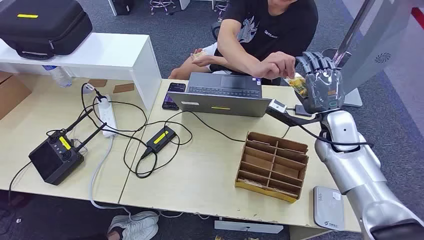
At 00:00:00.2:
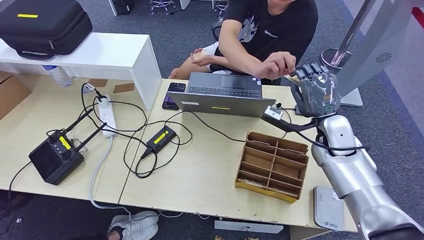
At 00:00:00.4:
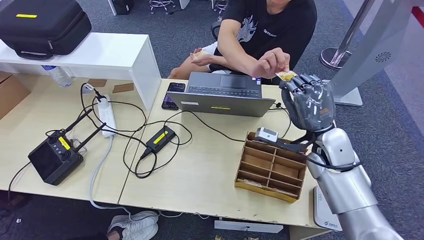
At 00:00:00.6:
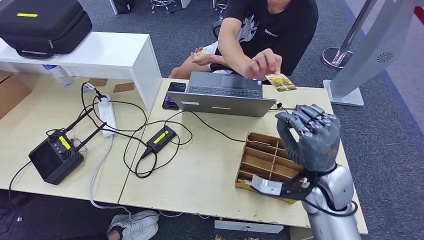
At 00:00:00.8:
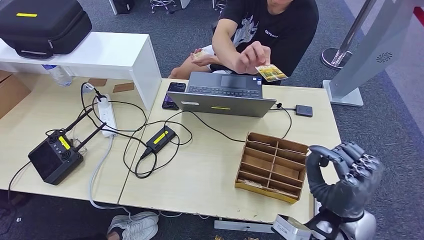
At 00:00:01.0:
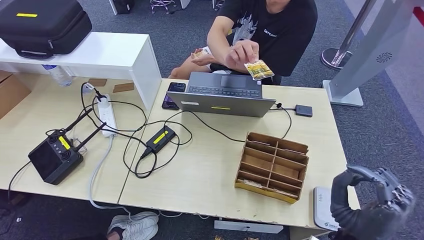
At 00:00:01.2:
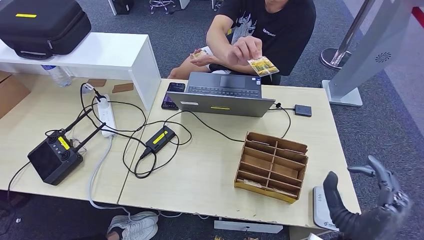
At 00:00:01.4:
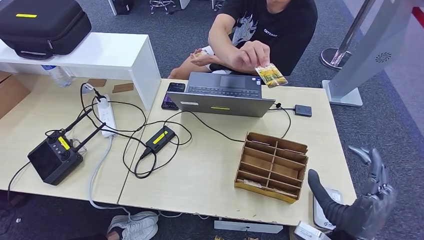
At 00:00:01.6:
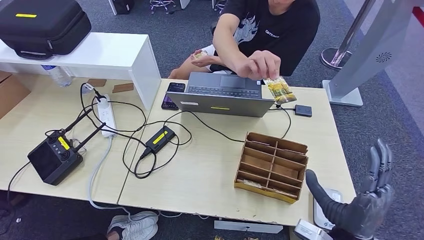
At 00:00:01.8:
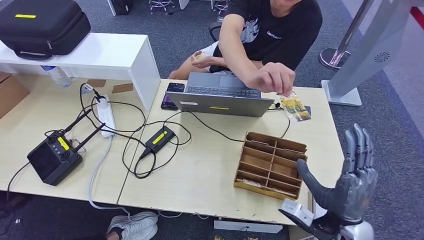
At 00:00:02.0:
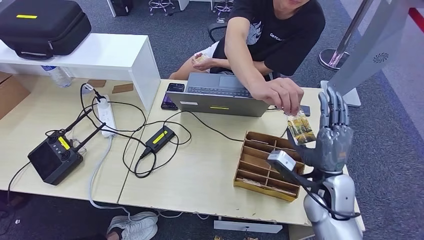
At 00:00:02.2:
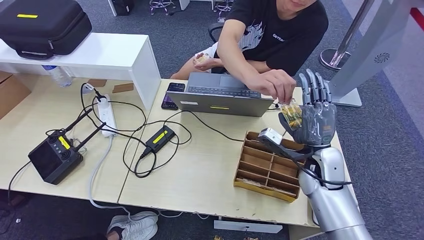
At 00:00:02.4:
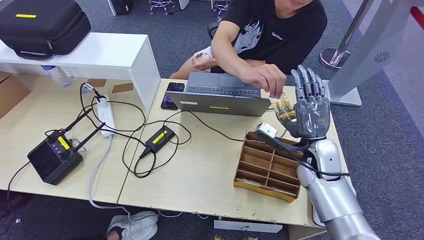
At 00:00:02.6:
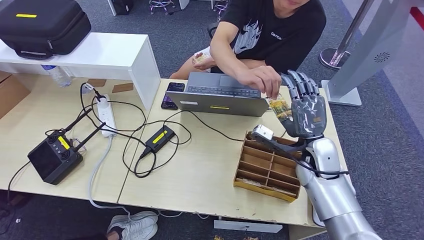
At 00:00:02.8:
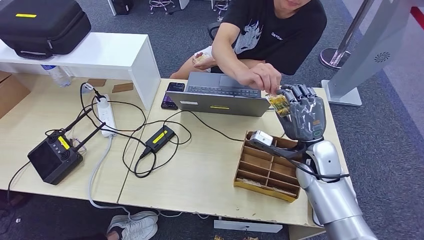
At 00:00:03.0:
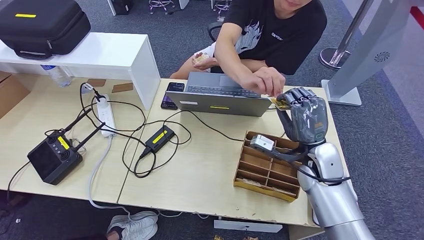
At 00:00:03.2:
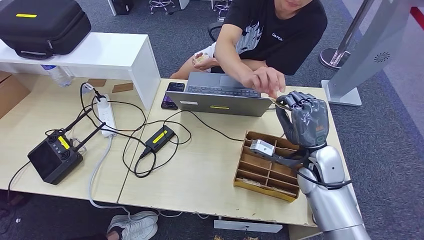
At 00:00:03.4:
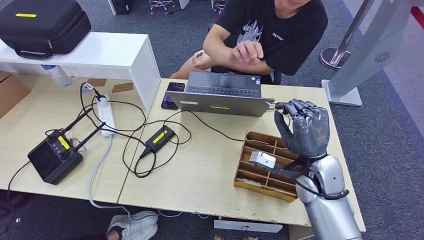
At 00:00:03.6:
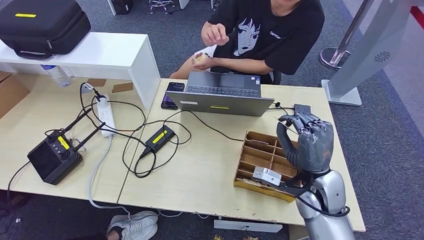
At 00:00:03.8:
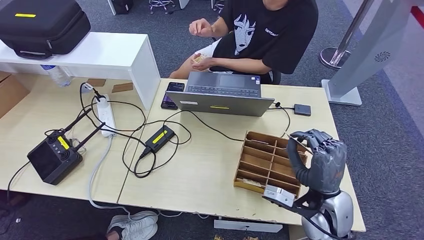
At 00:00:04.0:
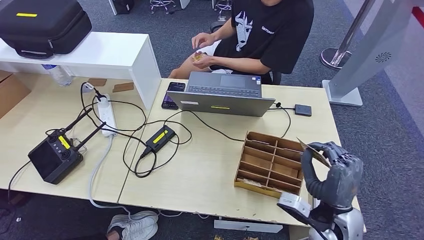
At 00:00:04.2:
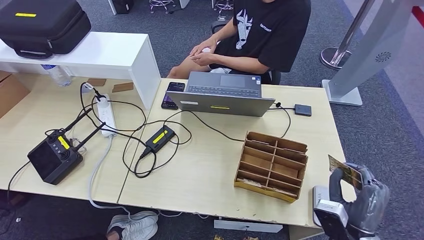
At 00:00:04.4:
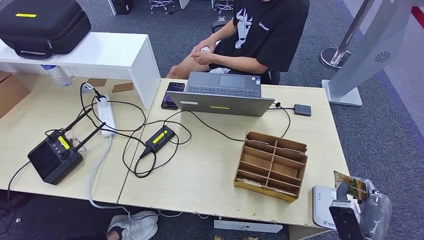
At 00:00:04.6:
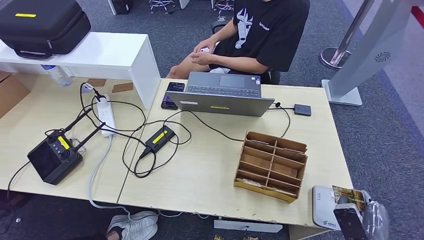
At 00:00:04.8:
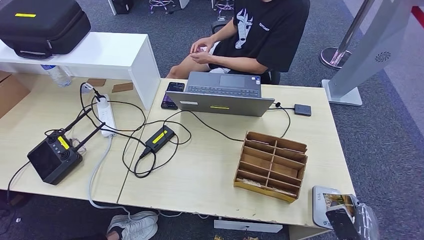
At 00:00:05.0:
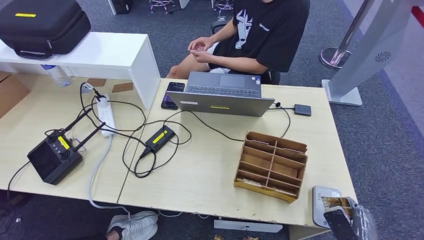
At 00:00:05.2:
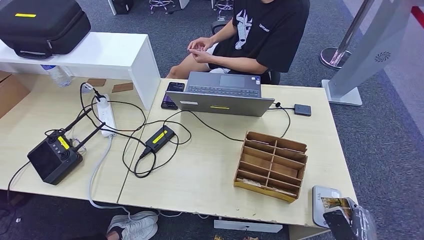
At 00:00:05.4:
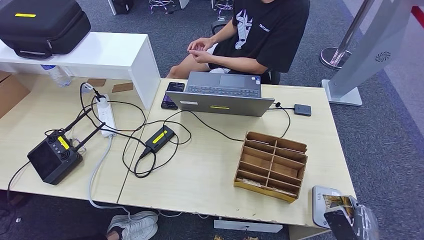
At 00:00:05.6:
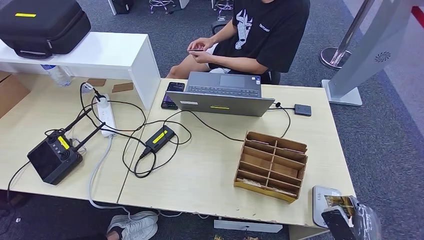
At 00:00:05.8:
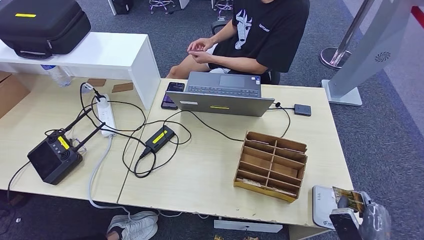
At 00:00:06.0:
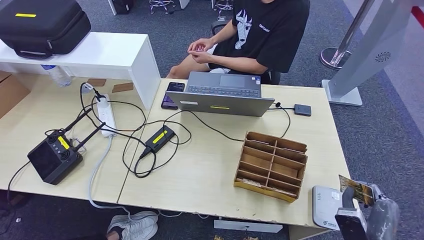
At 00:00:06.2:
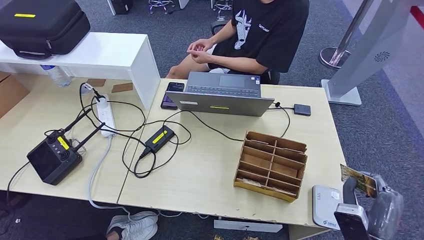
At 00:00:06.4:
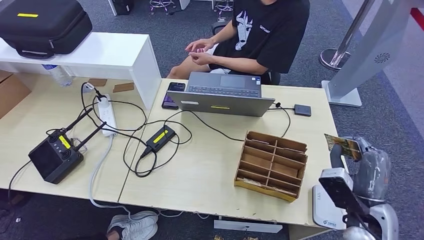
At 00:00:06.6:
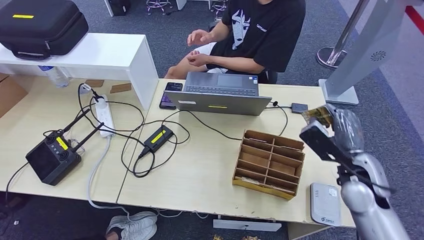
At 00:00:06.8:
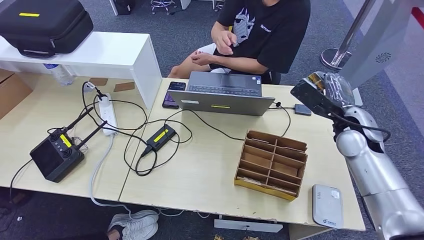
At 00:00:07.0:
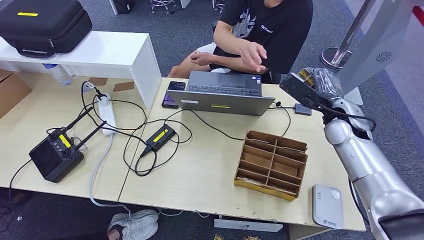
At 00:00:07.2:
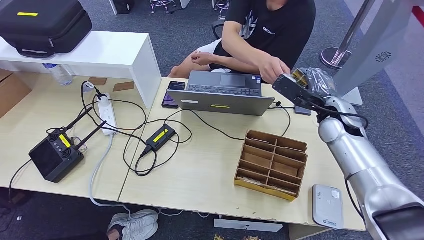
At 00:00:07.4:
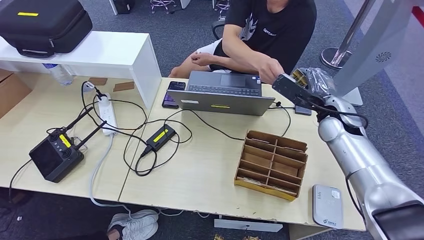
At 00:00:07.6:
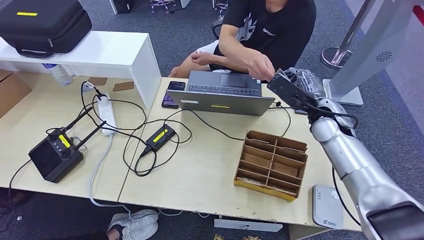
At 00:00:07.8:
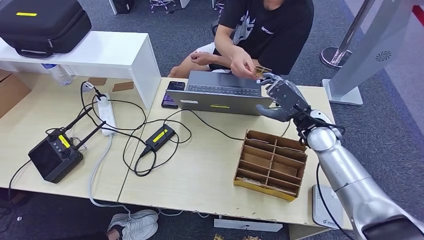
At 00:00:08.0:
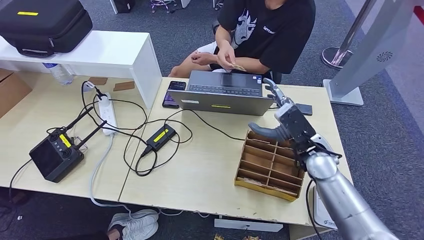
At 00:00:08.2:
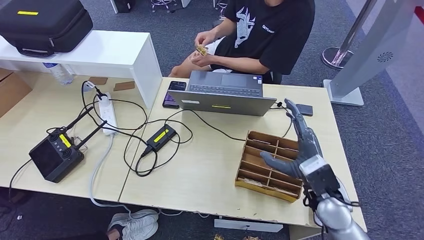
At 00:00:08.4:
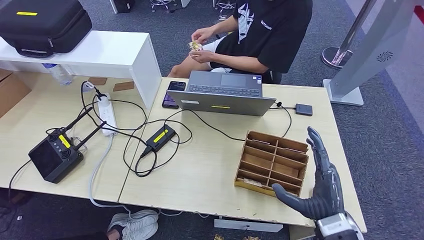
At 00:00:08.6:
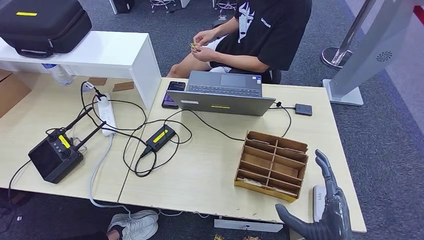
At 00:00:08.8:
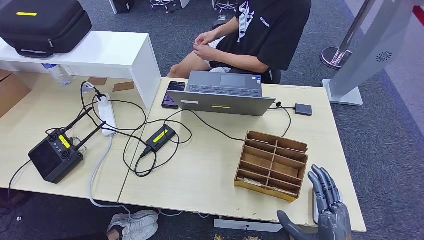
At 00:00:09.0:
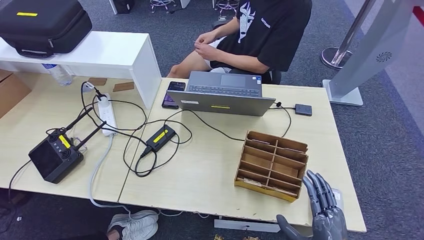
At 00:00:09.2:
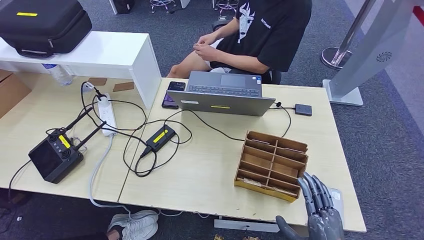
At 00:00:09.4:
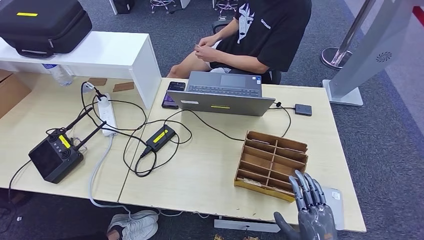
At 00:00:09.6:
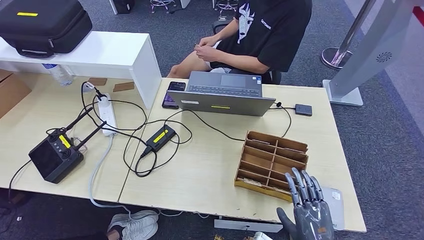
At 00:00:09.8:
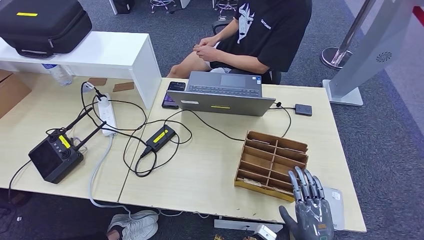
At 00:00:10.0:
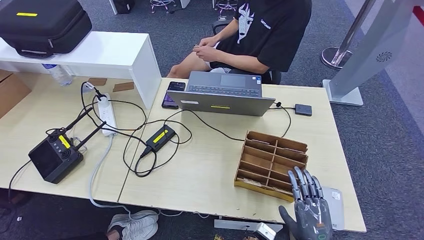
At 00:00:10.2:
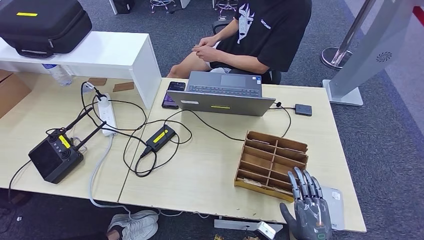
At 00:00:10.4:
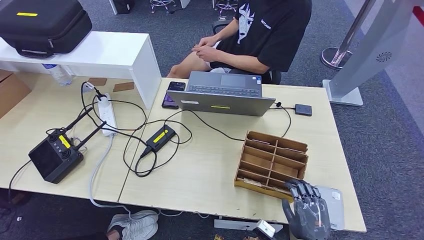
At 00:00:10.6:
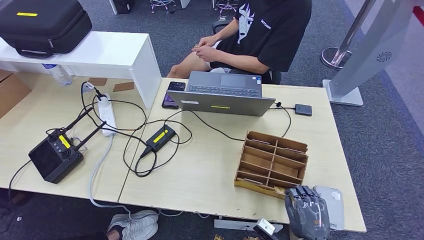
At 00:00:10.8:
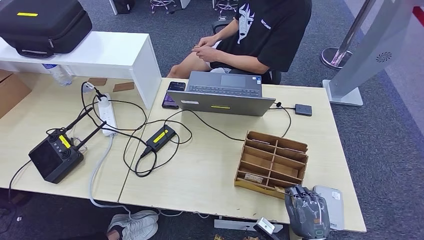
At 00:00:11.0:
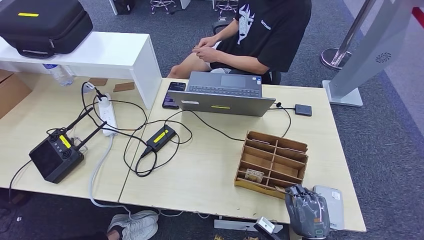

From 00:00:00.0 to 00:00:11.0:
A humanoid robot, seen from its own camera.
Step, from 00:00:00.0 to 00:00:02.8: Take the ID card from the person's hand.
Step, from 00:00:03.0 to 00:00:06.6: Place the ID card on the card reader.
Step, from 00:00:06.8 to 00:00:07.8: Hand the ID card to the person.
From 00:00:01.6 to 00:00:03.2: The right hand is displaced forward by some 20 cm.
From 00:00:03.2 to 00:00:04.8: The right hand travels backward, downward and to the right by some 30 cm.
From 00:00:04.8 to 00:00:06.2: The right hand is displaced upward by about 5 cm.
From 00:00:06.2 to 00:00:07.8: The right hand shifts about 30 cm forward and upward.
From 00:00:07.8 to 00:00:09.4: The right hand travels backward and downward by some 35 cm.
From 00:00:09.4 to 00:00:11.0: The right hand goes roughly 5 cm downward.

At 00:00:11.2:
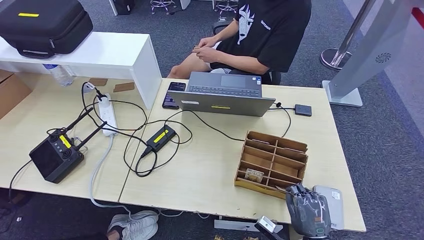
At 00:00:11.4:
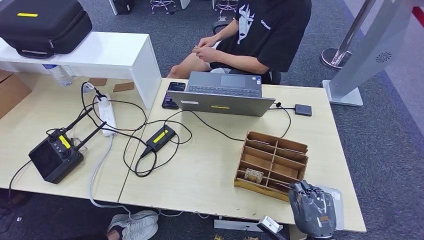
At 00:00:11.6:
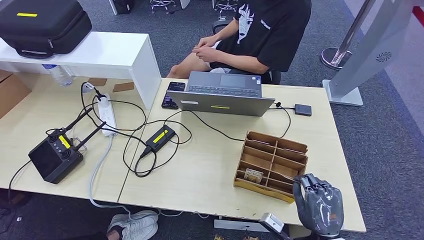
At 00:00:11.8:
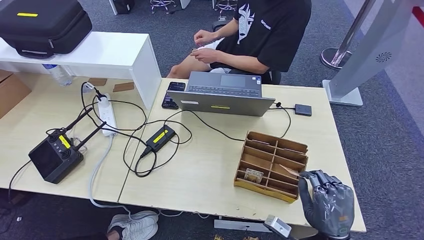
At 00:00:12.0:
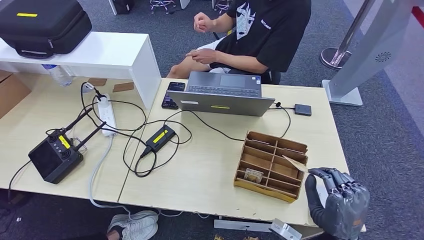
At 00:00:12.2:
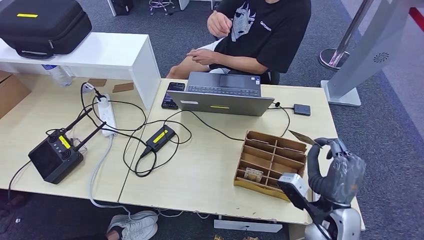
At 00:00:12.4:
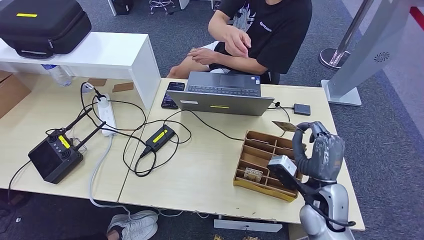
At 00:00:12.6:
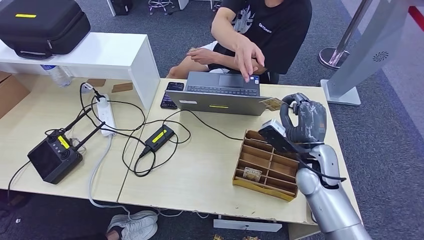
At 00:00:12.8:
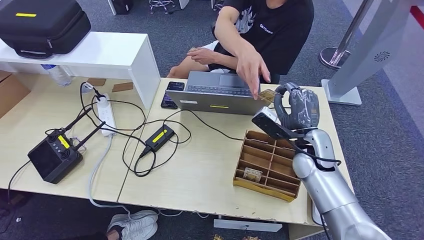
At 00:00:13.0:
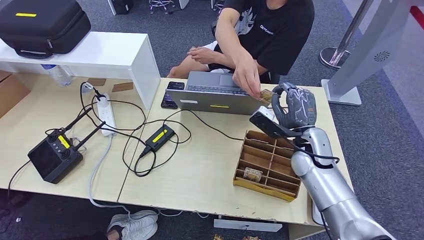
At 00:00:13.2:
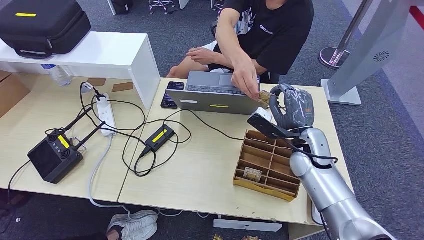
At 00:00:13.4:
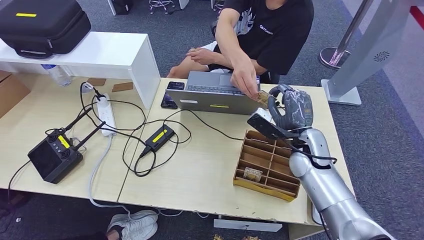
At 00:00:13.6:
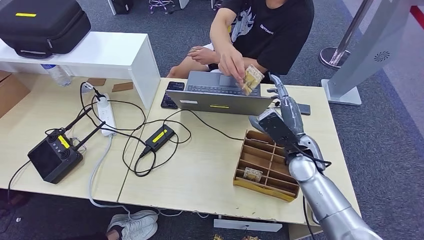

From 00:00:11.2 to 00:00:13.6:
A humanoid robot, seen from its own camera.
Step, from 00:00:12.0 to 00:00:13.6: Hand the room key to the person.
From 00:00:11.2 to 00:00:12.4: The right hand goes roughly 15 cm upward and forward.
From 00:00:12.4 to 00:00:13.6: The right hand goes some 10 cm forward.
